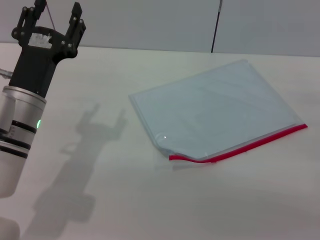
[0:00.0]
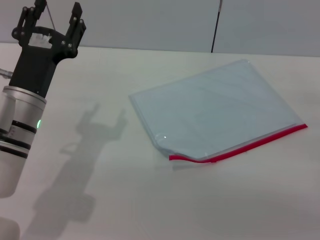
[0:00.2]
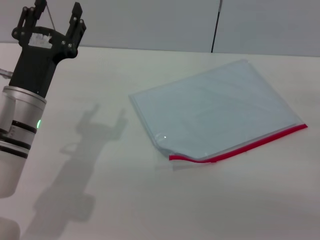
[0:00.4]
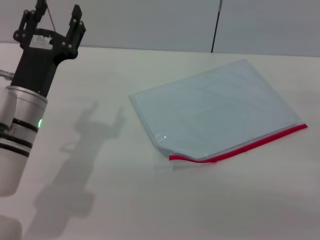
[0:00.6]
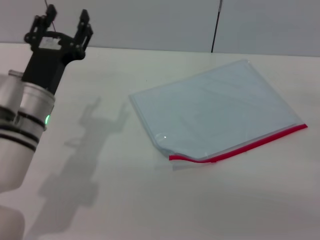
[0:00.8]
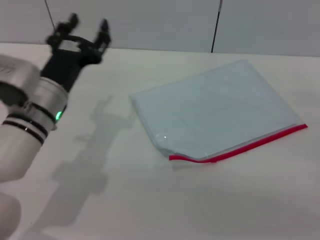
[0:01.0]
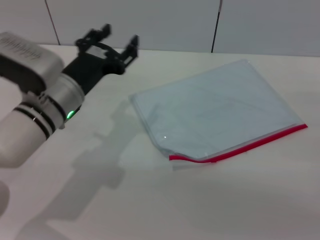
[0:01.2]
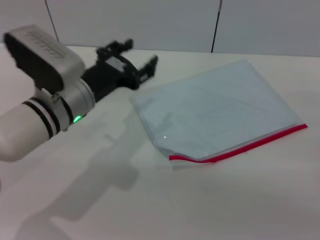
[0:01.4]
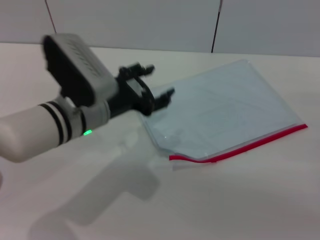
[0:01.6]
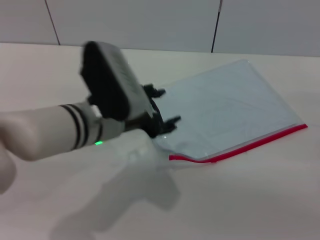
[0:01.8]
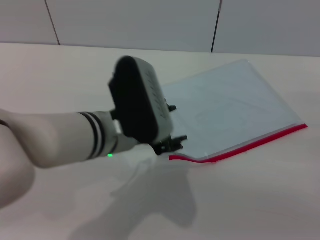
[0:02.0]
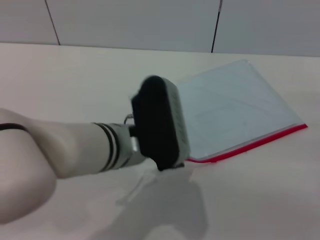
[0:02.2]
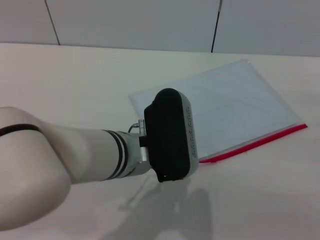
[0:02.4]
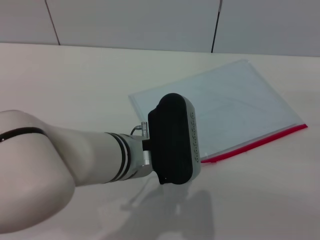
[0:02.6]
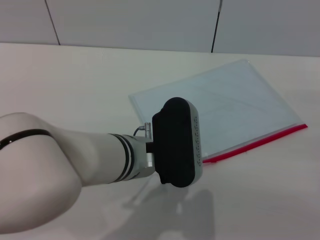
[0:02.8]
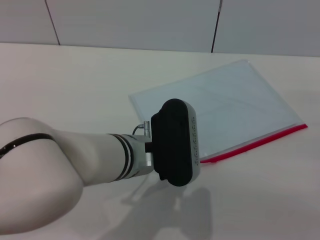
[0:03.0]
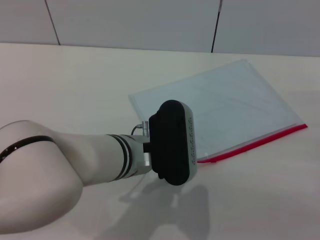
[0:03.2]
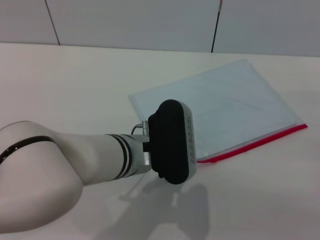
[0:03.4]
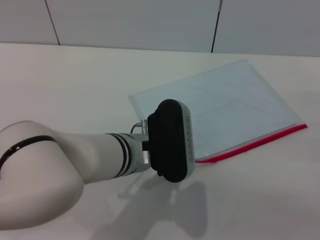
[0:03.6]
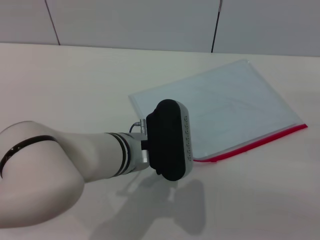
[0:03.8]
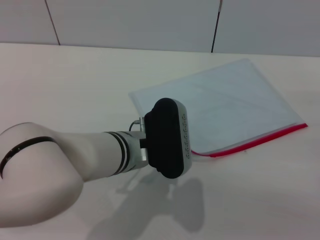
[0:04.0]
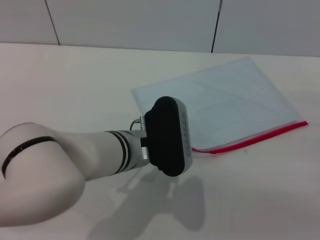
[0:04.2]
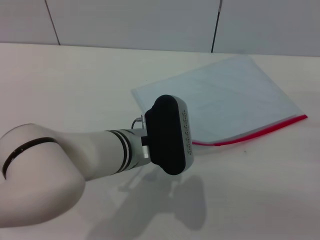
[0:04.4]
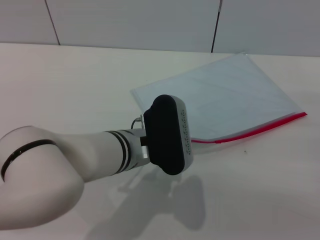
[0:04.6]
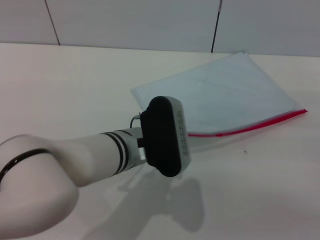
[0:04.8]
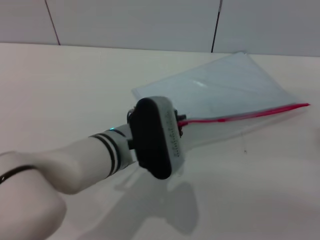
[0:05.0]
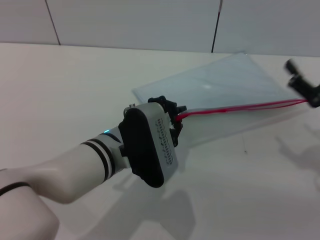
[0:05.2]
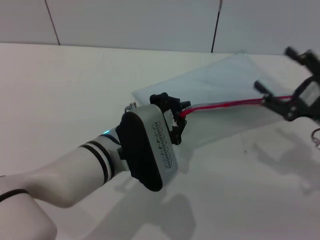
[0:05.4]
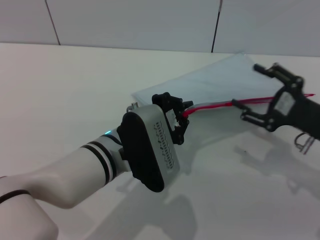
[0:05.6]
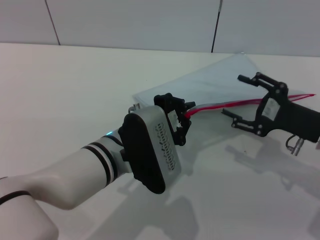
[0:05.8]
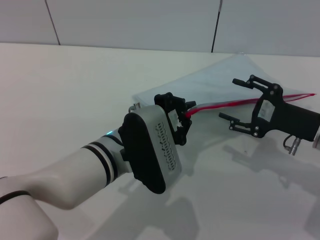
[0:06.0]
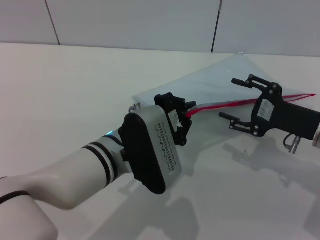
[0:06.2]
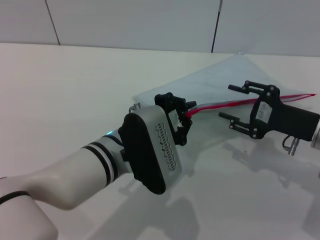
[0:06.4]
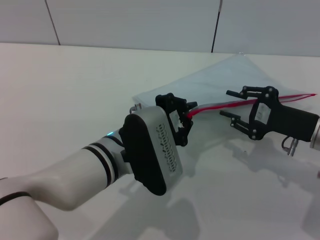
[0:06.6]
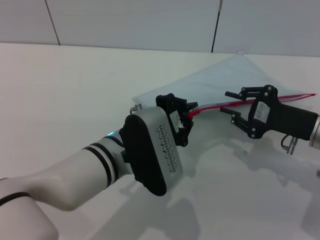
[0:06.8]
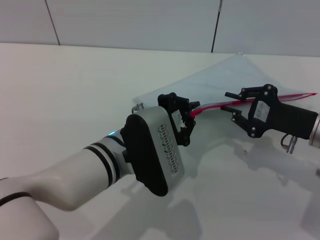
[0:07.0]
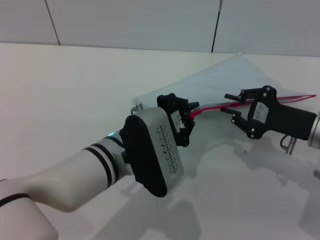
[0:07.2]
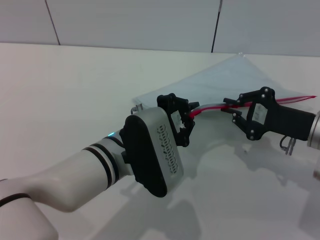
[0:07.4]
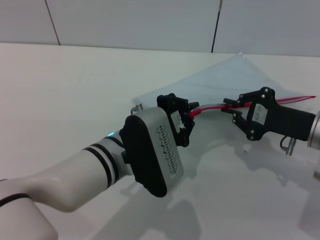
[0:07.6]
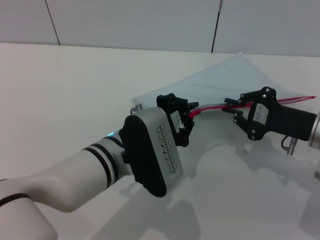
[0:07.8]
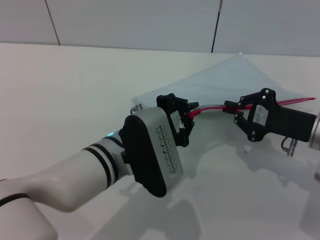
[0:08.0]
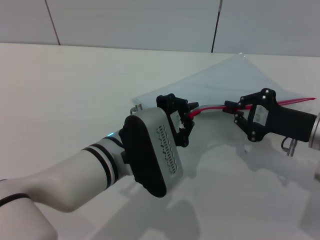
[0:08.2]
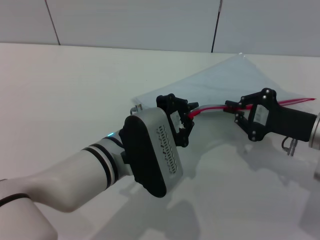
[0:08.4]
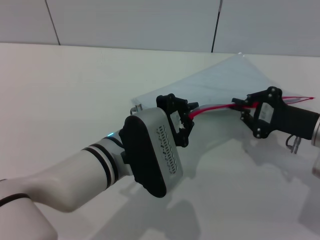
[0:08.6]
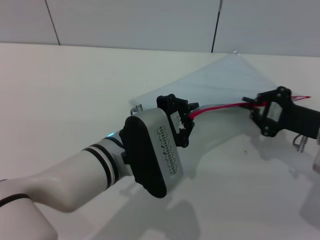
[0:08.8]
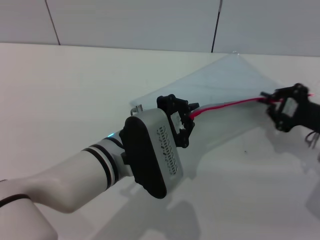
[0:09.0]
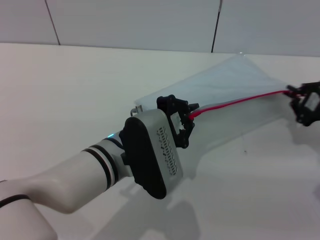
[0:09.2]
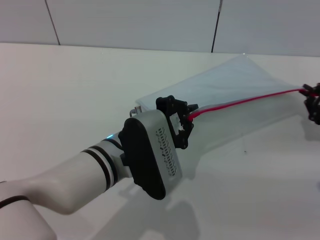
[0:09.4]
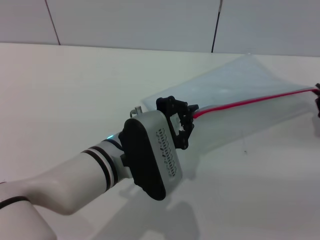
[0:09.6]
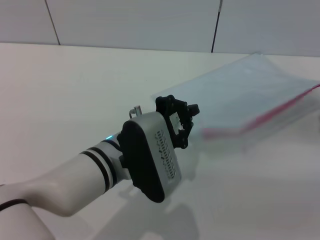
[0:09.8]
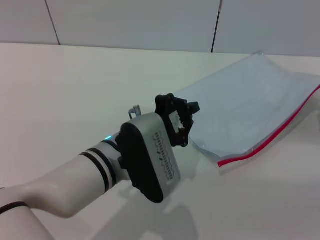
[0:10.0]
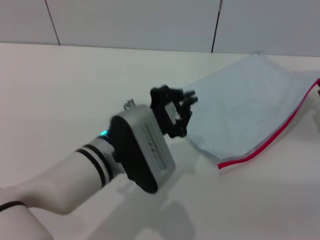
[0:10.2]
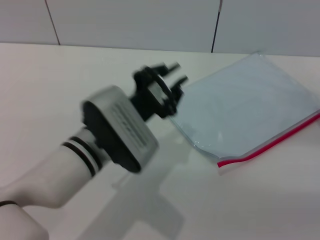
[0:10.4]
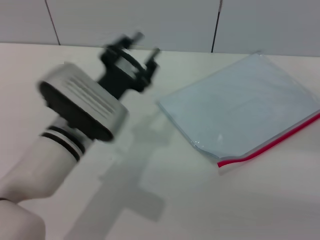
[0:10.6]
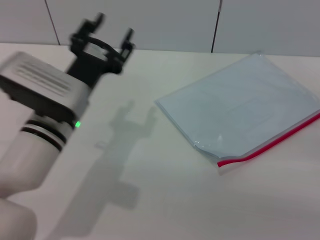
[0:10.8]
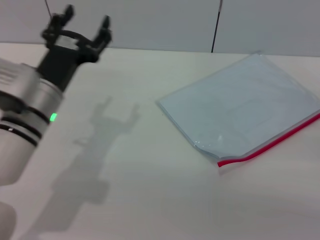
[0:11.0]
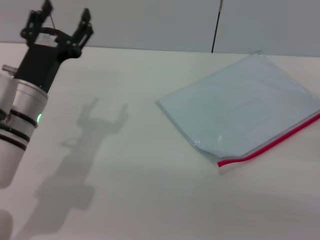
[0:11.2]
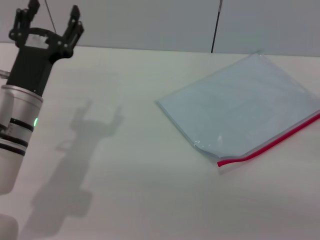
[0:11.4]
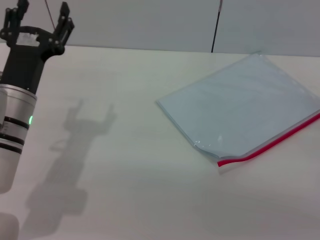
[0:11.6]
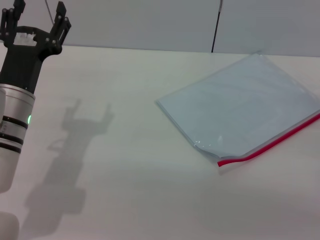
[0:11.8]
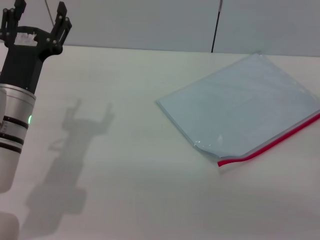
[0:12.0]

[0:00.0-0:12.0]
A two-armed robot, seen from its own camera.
Step, 0:00.0 to 0:05.2: Pick up the transparent plastic bag with the left gripper.
Step, 0:05.4 to 0:10.0: Pulling up the zipper on the transparent plastic bag with the right gripper to close it.
Step, 0:10.4 to 0:11.6: Place the transparent plastic bag.
0:00.0 to 0:01.6: The left gripper shifts about 5 cm to the right.
0:01.6 to 0:03.0: The left gripper shifts about 10 cm to the right.
0:03.0 to 0:04.4: The left gripper closes.
0:04.4 to 0:06.0: The right gripper moves to the left and forward, some 10 cm.
0:06.0 to 0:07.6: The right gripper closes up.
0:07.6 to 0:09.0: The grippers move only a little.
0:09.0 to 0:10.4: The right gripper goes roughly 5 cm to the right, and opens up.
0:10.4 to 0:12.0: The left gripper shifts approximately 10 cm to the left, and opens up, while the right gripper opens up.

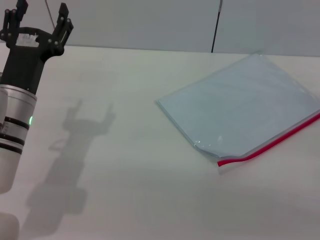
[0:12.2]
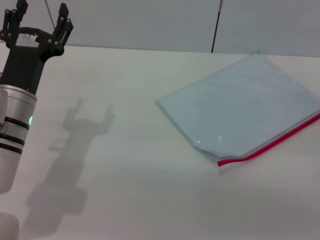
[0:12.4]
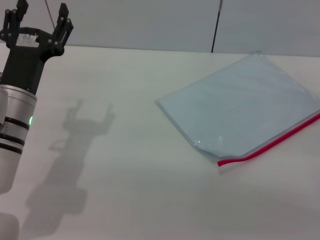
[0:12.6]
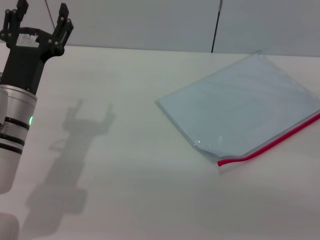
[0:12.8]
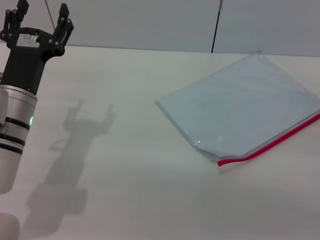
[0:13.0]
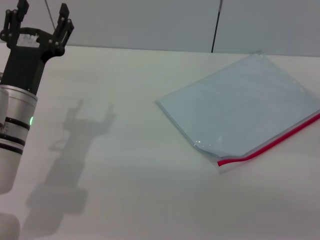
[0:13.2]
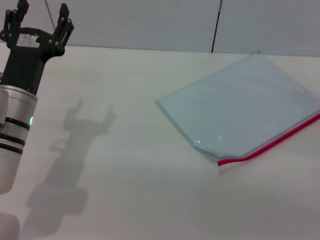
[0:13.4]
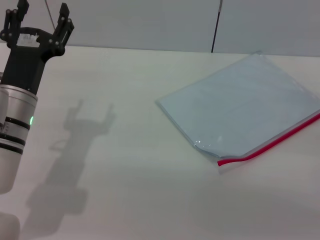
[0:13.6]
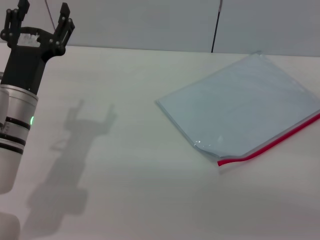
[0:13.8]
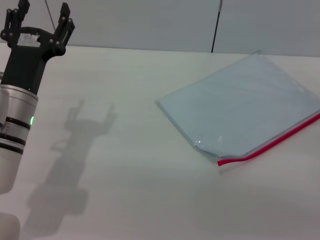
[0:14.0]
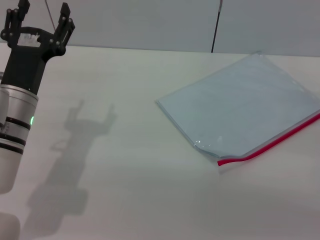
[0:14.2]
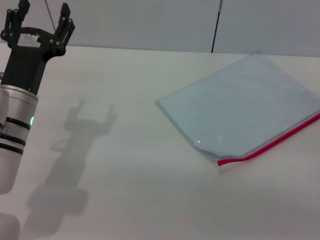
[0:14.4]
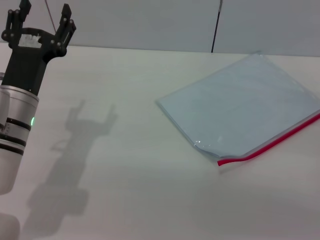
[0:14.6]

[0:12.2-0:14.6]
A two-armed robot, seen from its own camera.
0:12.2 to 0:14.6: The two grippers keep their place.

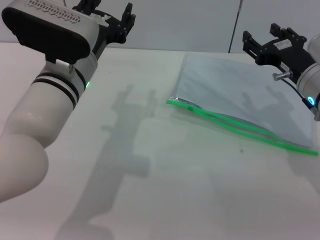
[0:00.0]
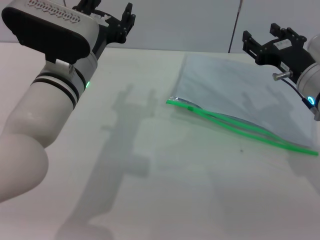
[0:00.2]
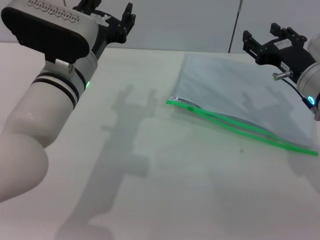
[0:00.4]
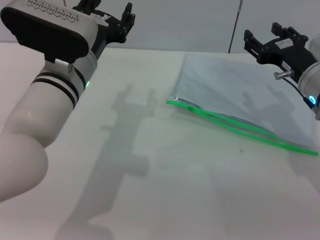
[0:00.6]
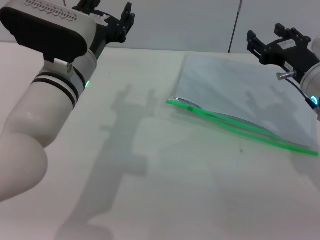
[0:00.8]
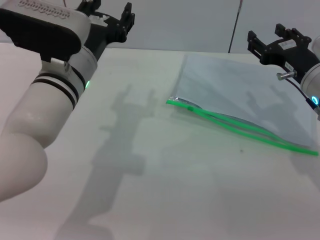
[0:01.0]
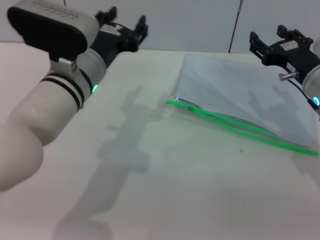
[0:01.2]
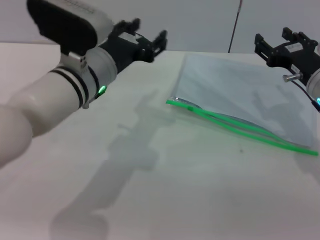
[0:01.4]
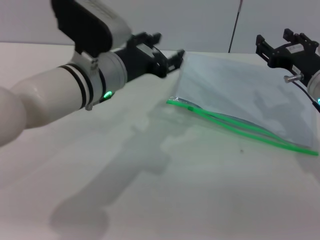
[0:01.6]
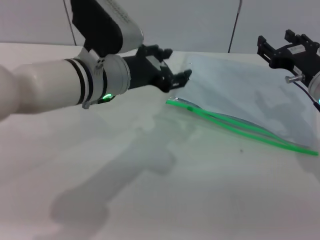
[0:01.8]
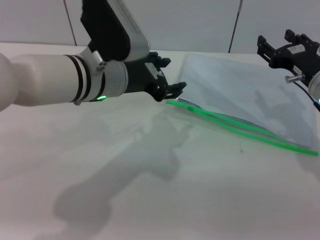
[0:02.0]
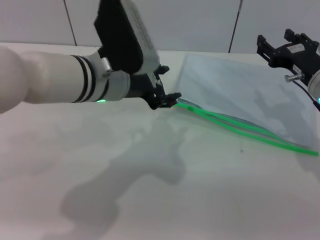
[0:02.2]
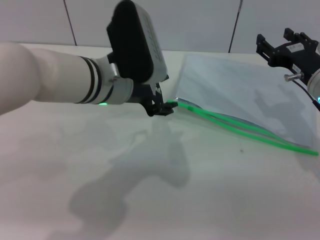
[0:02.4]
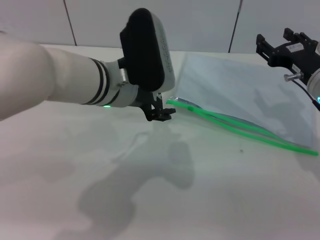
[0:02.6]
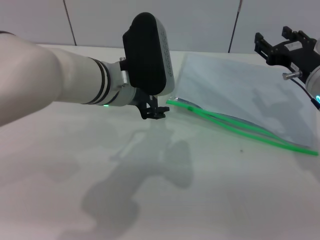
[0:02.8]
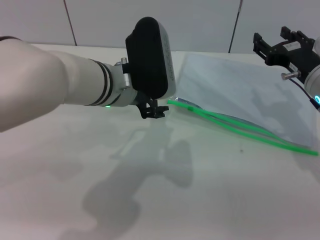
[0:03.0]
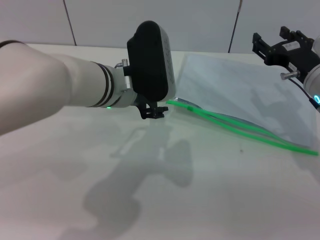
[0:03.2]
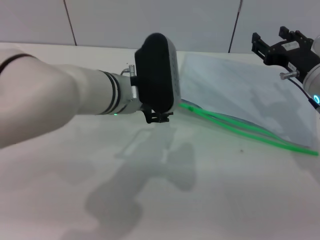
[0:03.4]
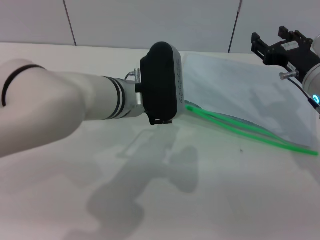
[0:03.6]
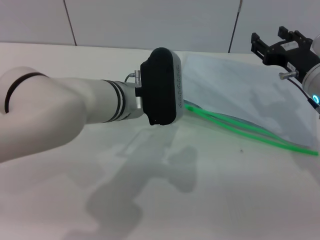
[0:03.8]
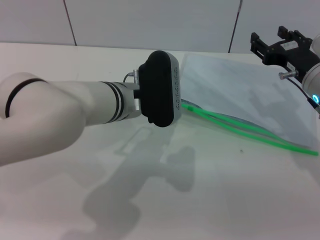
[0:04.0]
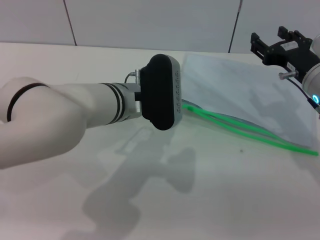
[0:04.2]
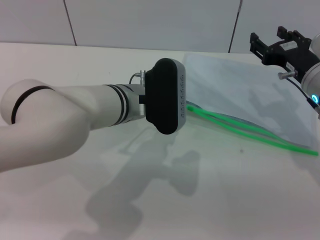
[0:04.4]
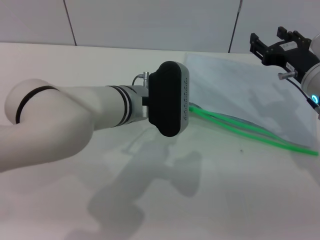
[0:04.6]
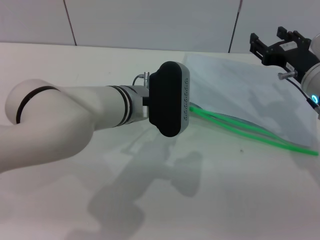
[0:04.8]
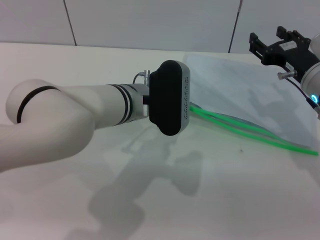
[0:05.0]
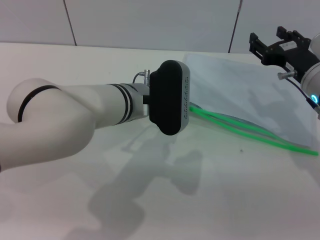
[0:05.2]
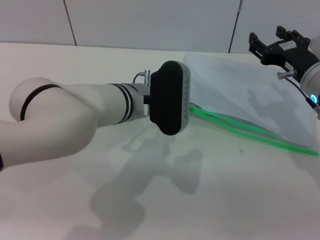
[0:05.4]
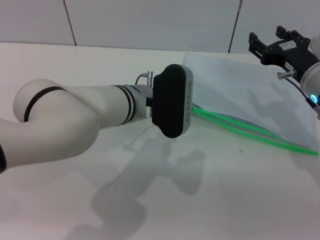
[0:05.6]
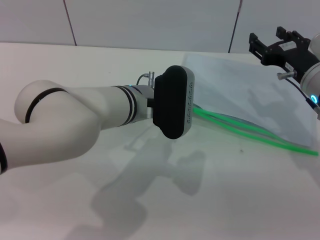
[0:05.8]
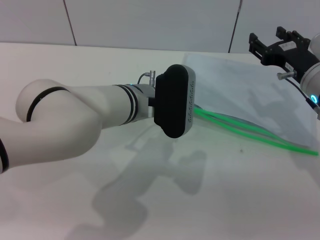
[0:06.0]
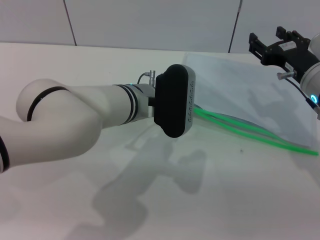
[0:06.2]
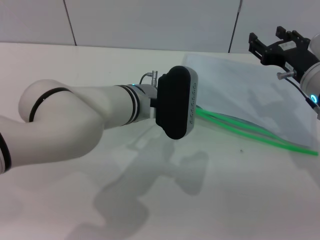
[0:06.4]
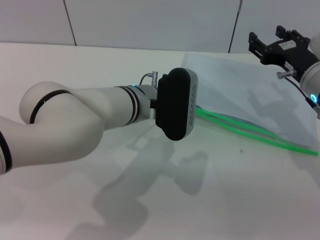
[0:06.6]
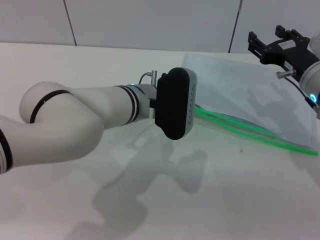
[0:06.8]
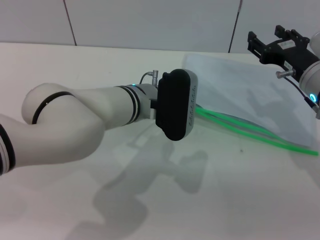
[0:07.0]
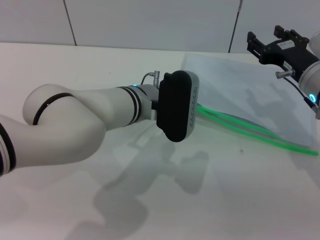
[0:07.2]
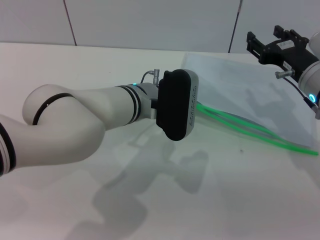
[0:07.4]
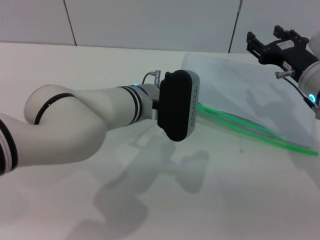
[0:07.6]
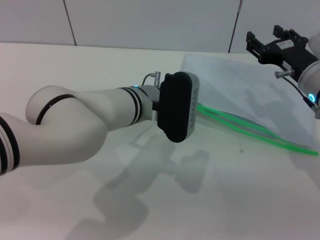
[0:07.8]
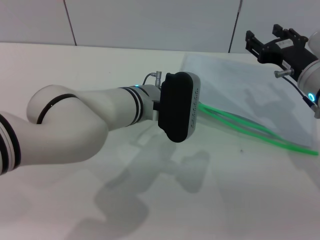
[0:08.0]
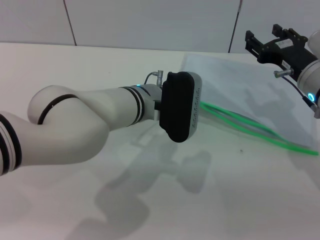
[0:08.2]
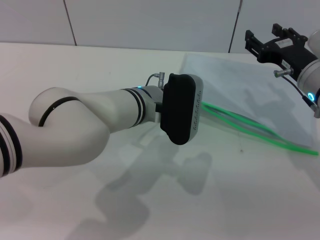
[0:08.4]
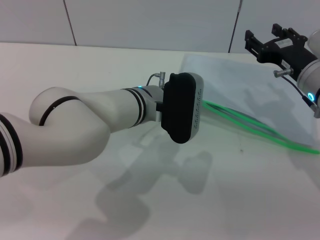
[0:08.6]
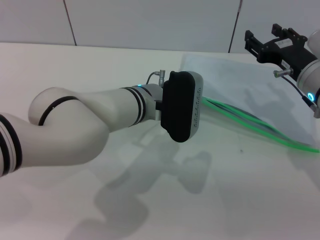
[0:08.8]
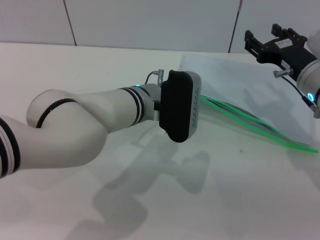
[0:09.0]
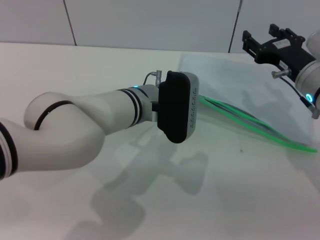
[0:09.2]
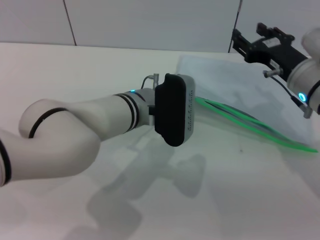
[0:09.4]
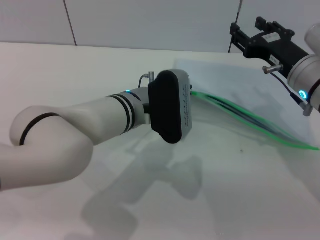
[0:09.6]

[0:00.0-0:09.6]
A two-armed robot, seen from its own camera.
0:03.2 to 0:04.8: There are only small adjustments of the grippers.
0:04.8 to 0:06.4: Both grippers stay put.
0:06.4 to 0:08.0: The left gripper closes its fingers.
0:08.0 to 0:09.6: The left gripper closes.
